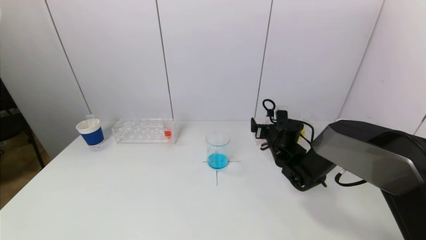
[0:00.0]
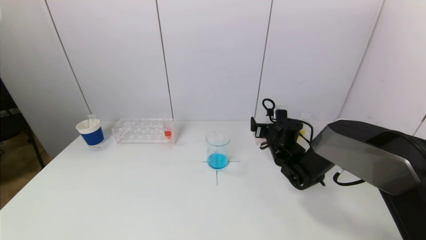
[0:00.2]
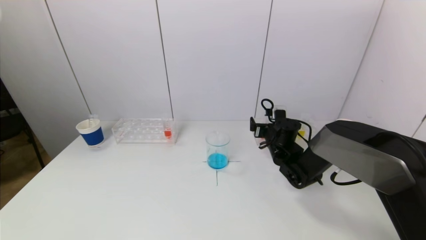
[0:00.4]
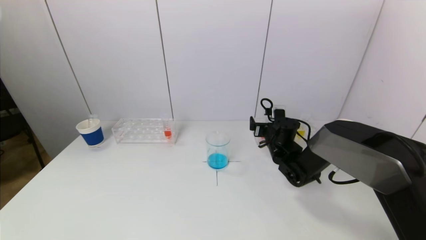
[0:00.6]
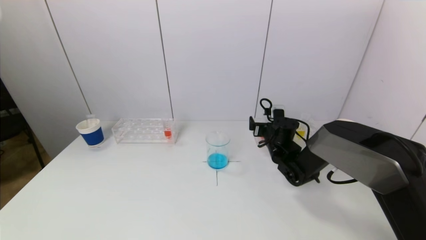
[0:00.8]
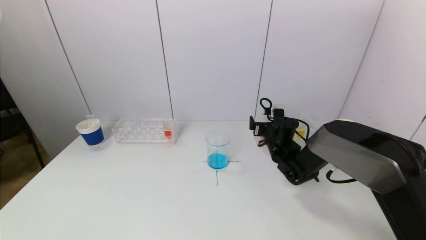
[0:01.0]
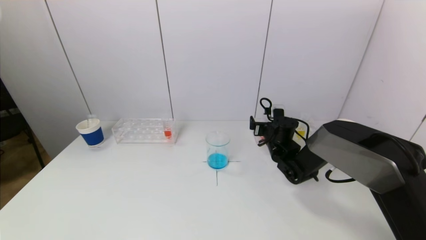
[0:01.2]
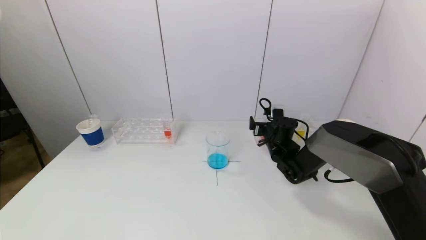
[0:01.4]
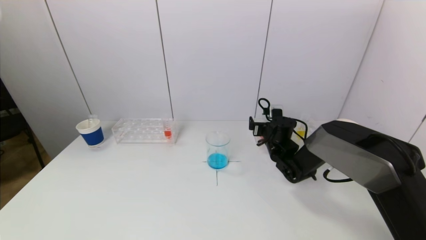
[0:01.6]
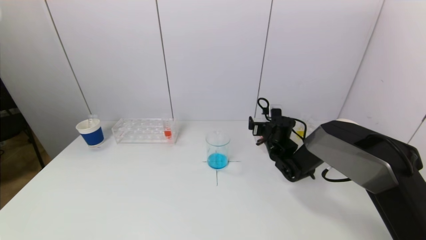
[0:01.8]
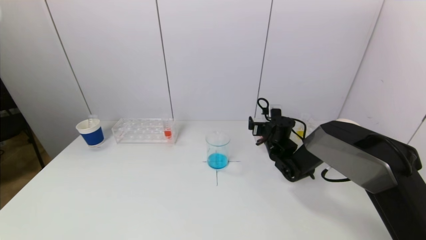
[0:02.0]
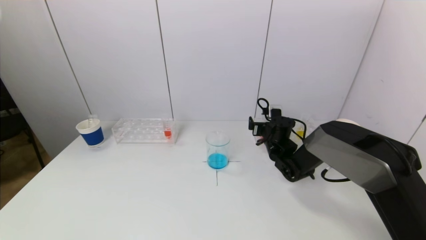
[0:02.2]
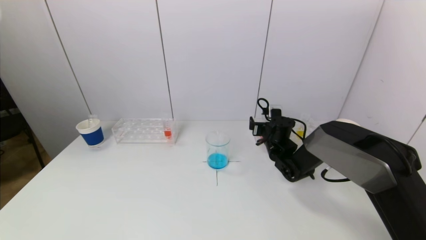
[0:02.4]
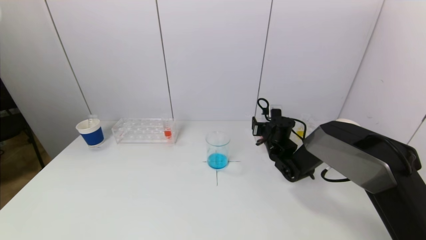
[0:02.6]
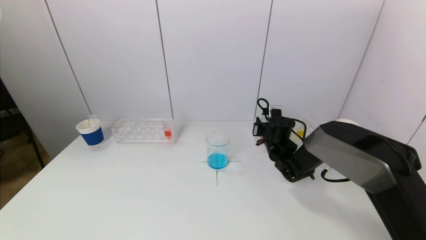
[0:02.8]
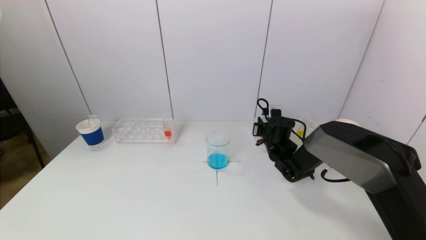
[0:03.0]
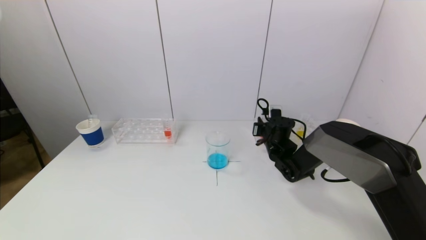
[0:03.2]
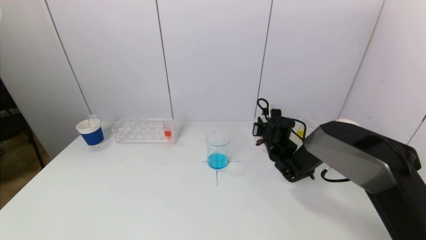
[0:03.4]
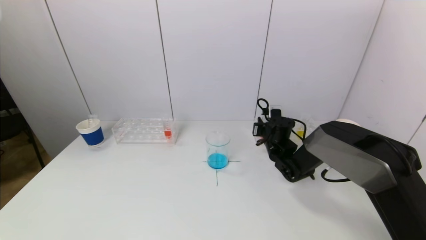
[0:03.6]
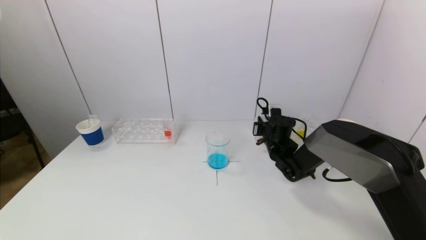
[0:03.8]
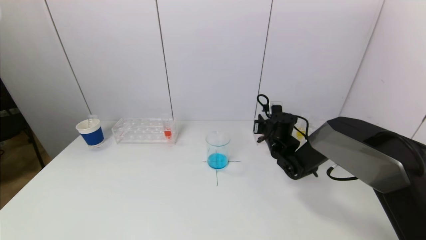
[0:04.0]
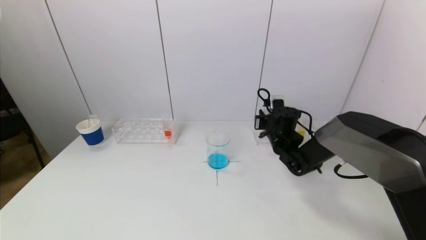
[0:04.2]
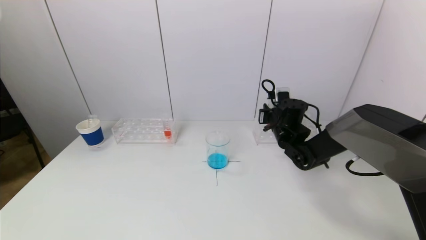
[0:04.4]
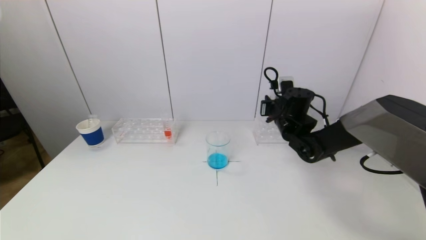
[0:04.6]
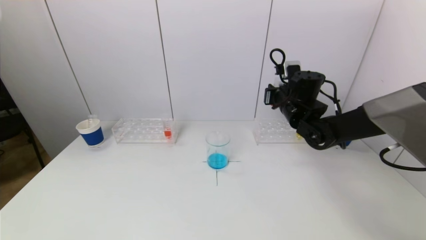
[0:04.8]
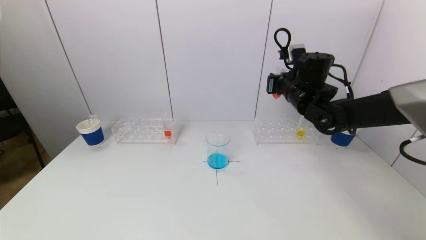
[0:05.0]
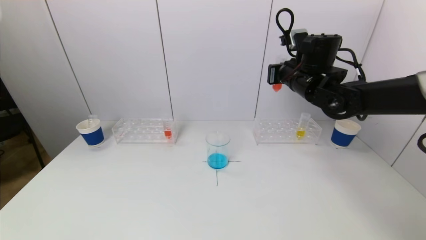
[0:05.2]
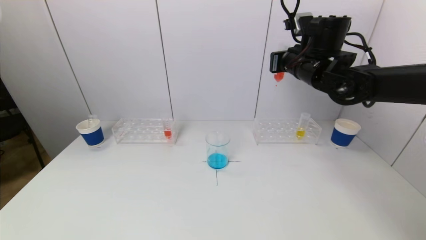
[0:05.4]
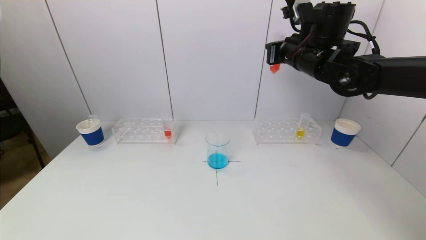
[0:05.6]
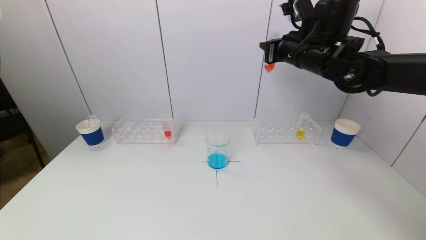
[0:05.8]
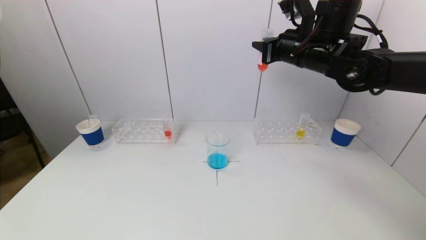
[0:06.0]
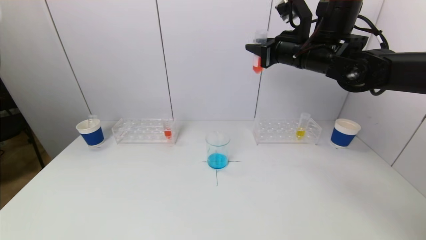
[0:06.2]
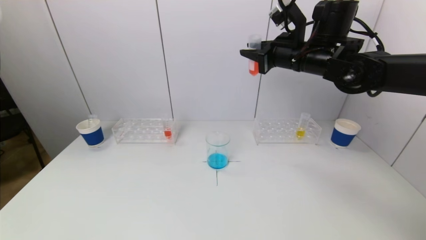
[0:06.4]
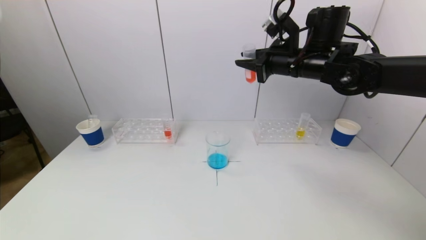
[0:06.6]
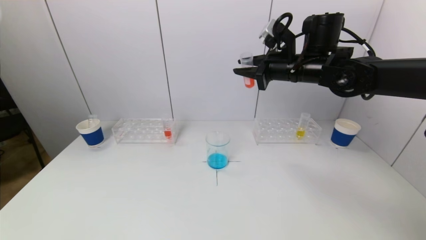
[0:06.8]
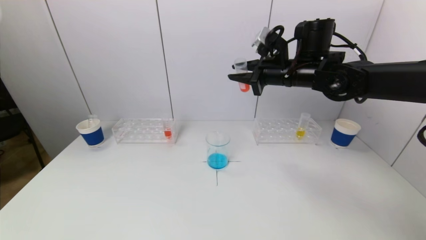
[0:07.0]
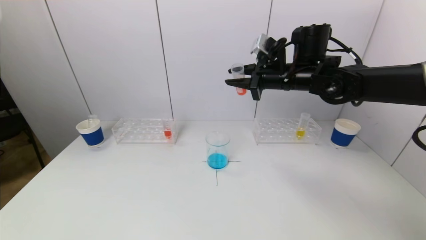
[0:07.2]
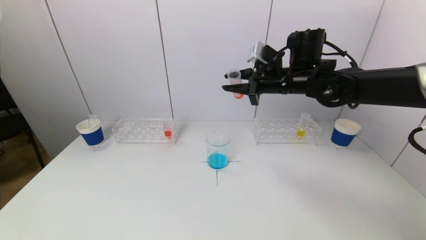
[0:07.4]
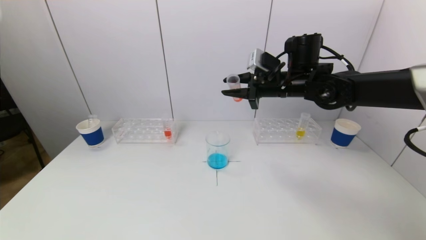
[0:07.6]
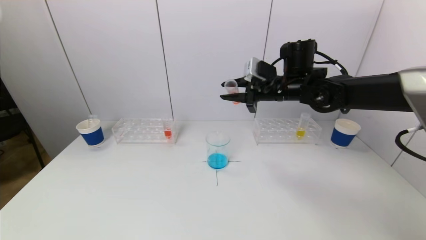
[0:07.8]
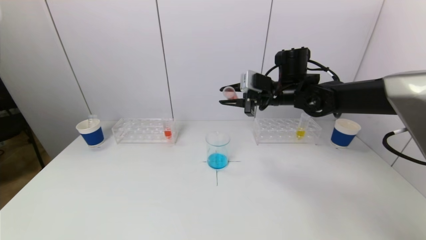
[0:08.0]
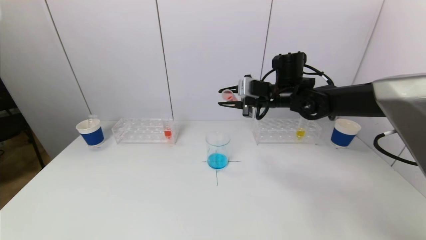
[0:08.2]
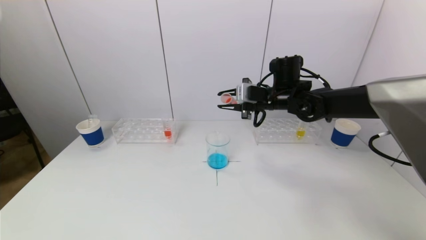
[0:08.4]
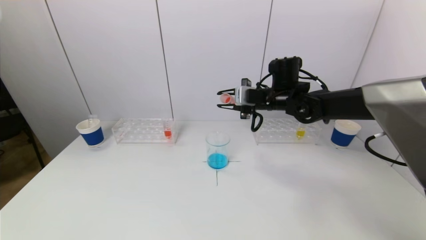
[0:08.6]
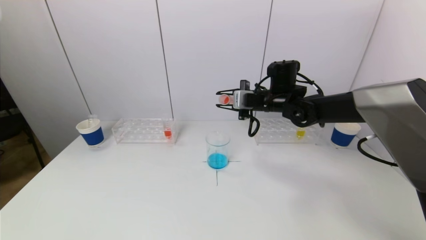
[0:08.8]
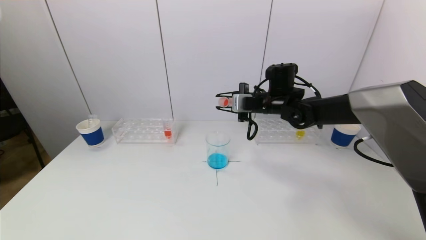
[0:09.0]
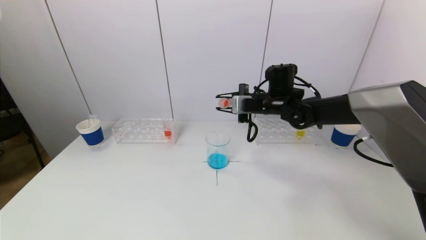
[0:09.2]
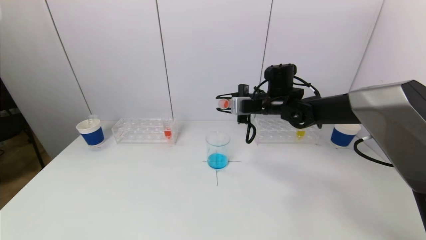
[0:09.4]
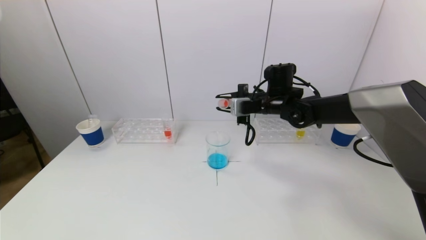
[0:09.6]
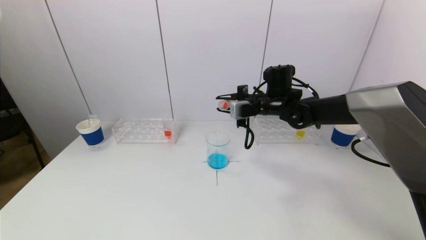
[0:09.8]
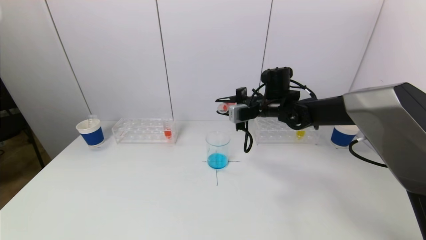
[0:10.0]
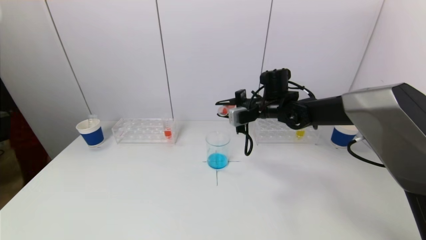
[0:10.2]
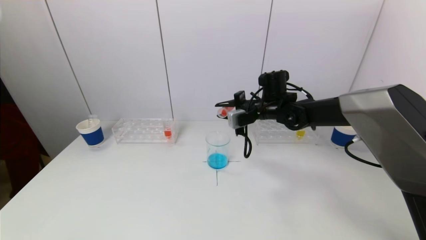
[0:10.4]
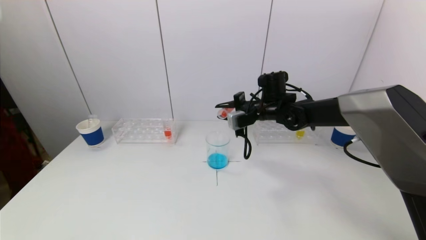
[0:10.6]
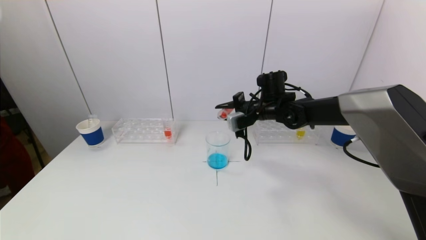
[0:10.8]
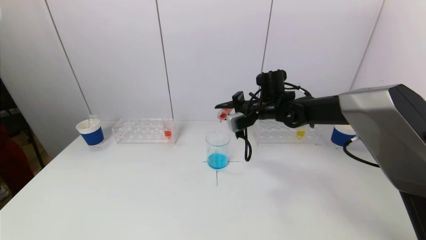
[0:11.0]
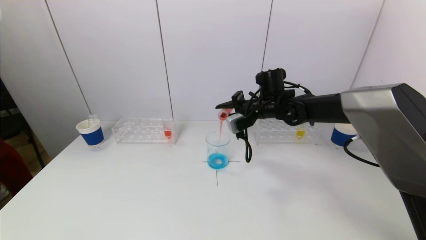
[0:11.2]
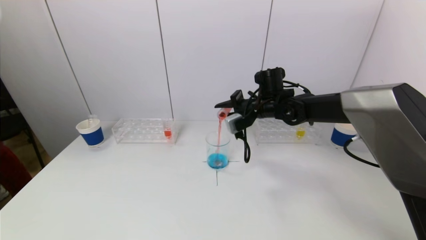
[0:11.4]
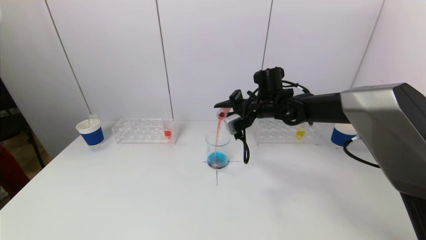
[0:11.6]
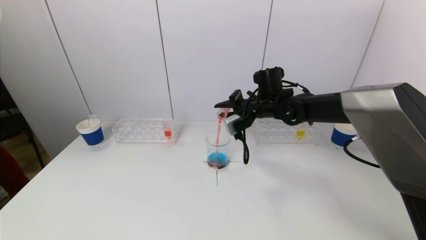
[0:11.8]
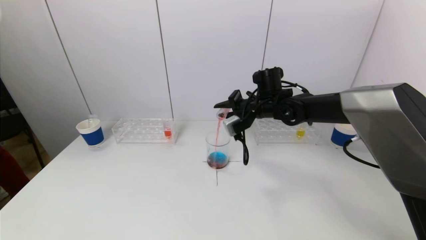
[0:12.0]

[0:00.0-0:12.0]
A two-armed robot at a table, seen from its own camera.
Task of the whole recording: pick up a test tube with pigment on left test tube rack and a test tube with pigment on right test tube rack by grippers and pour them into the beaker.
Step, 0:00.0 to 0:03.0: Grasp the red reagent with the right gripper.
0:00.0 to 0:01.6: There are only small adjustments of the grippers.
0:01.6 to 0:03.0: The right gripper closes up.
0:03.0 to 0:04.4: The right gripper moves upward, some 5 cm.
0:04.4 to 0:06.0: The right gripper goes roughly 20 cm upward.
0:06.0 to 0:07.6: The right gripper heads downward, covering about 5 cm.
0:07.6 to 0:09.0: The right gripper moves downward, about 5 cm.
0:09.0 to 0:10.4: The grippers move only a little.
0:10.4 to 0:12.0: The grippers make only small movements.

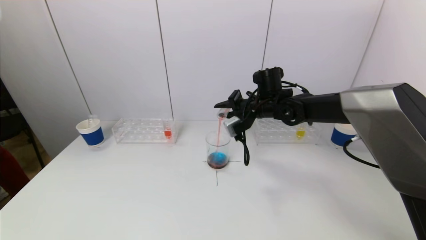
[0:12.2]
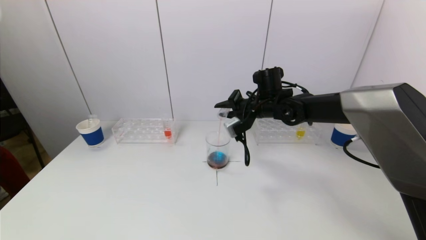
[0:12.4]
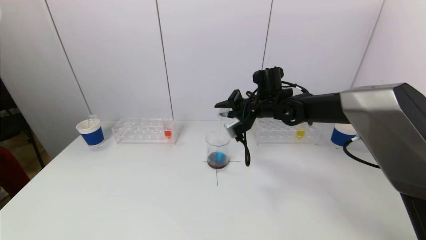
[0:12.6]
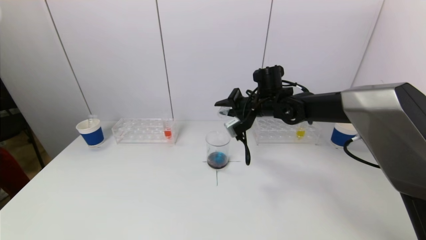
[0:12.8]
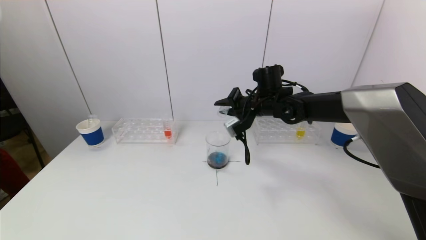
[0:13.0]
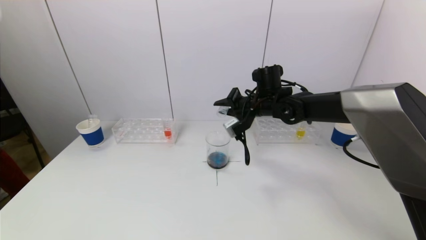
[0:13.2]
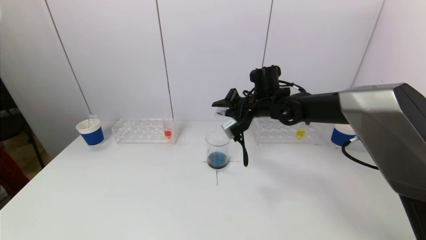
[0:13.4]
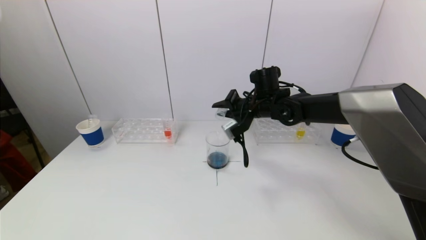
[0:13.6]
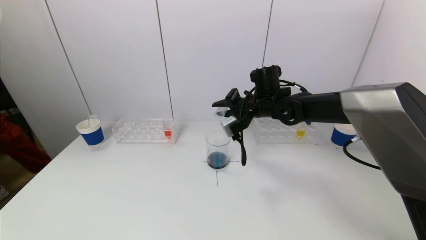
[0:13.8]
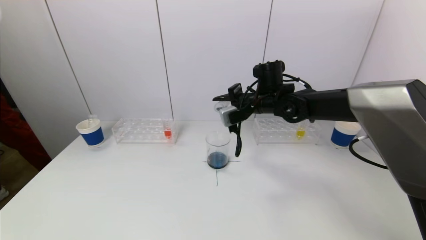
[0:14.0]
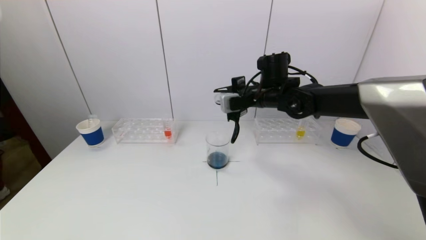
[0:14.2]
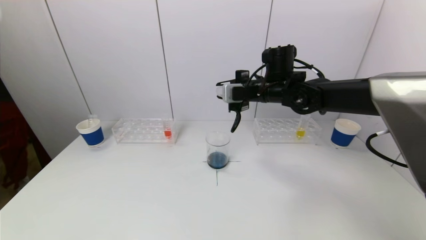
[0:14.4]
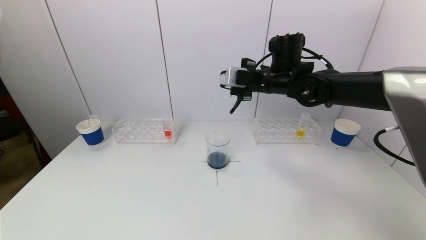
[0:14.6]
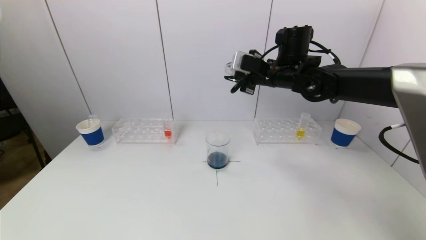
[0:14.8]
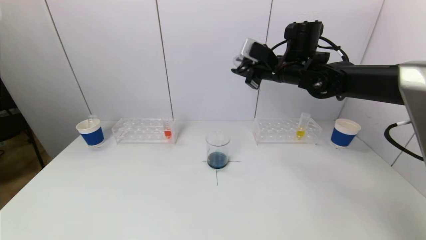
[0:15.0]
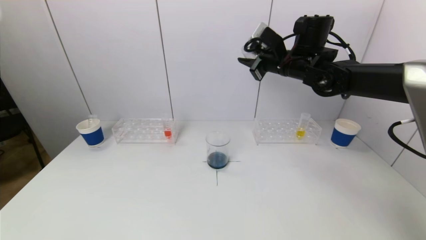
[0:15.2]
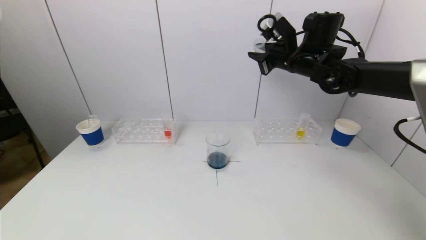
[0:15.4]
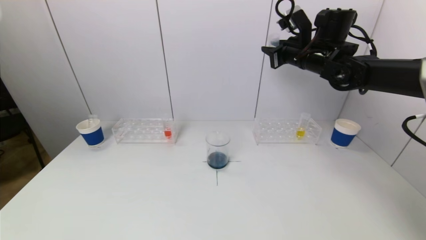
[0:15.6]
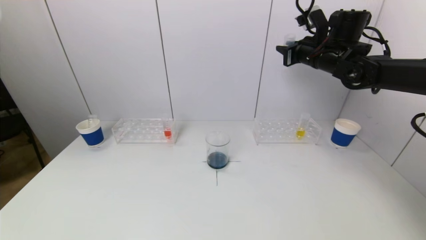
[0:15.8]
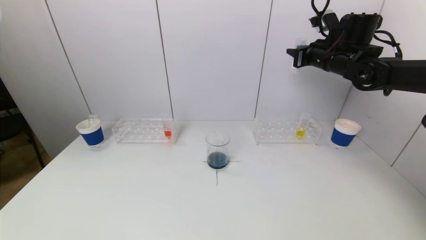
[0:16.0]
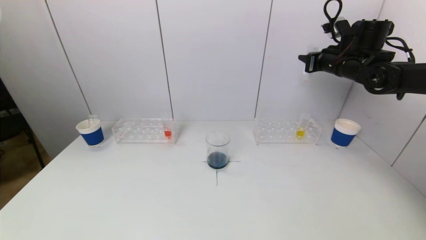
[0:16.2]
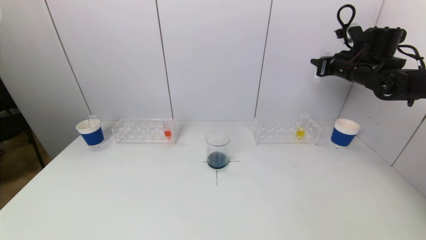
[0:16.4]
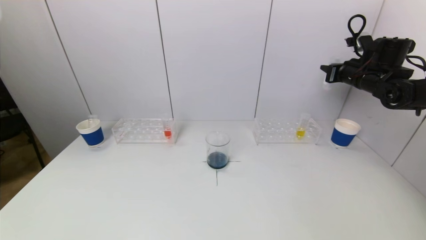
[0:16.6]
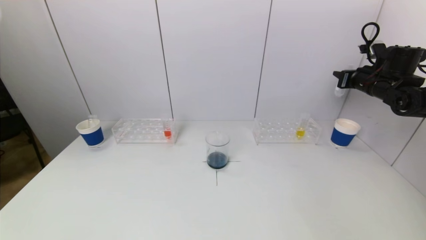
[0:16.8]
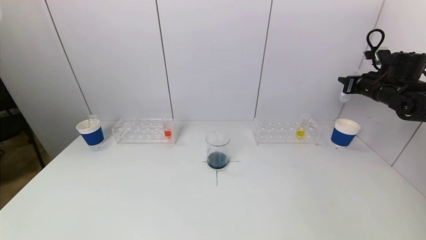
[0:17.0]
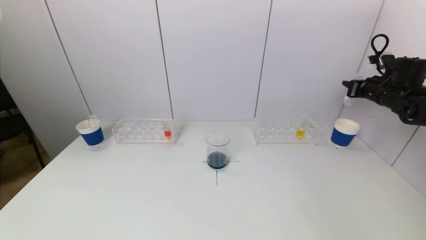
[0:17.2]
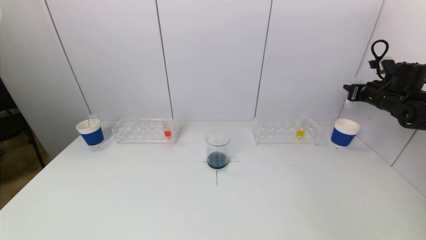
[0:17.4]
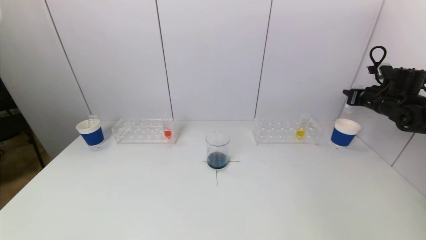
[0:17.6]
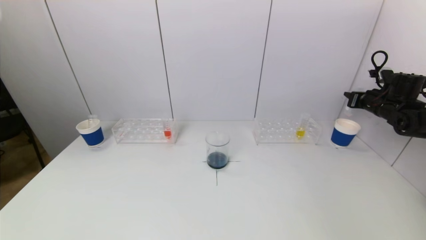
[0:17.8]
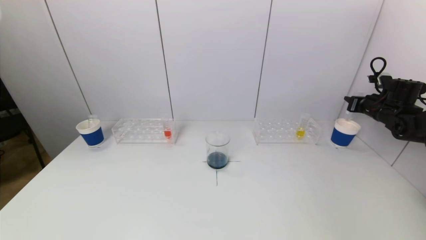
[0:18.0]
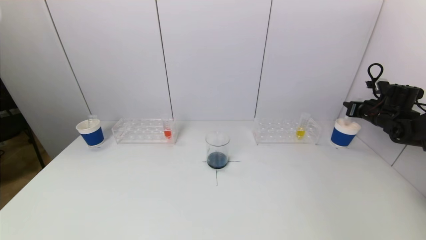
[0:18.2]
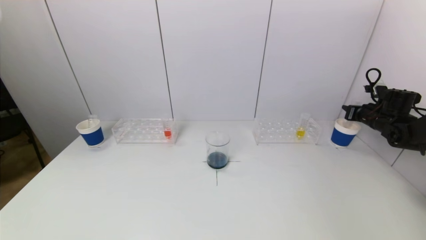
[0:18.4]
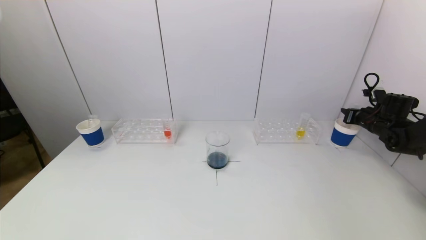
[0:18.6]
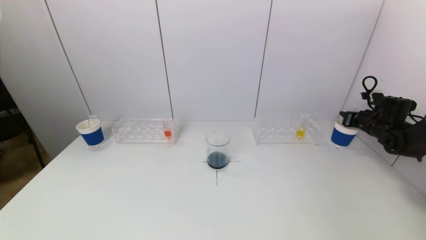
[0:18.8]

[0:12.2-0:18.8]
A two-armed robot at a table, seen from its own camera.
Task of the whole recording: pick up a test tube with pigment on left test tube rack and a test tube with pigment on right test tube rack by grippers and pour them into the beaker.
0:12.2 to 0:13.8: The grippers make only small movements.
0:13.8 to 0:15.4: The right gripper goes some 15 cm upward and to the right.
0:15.4 to 0:17.2: The right gripper travels to the right by some 25 cm.
0:17.2 to 0:18.8: The right gripper heads downward, covering roughly 10 cm.
